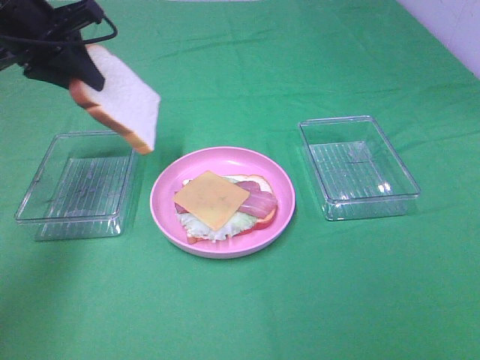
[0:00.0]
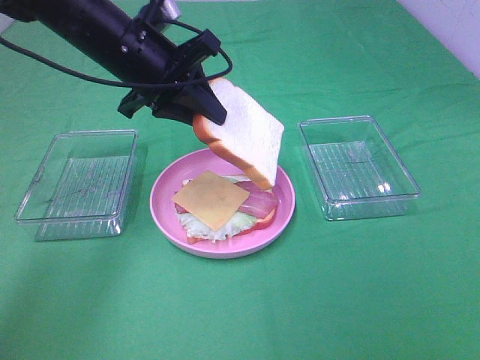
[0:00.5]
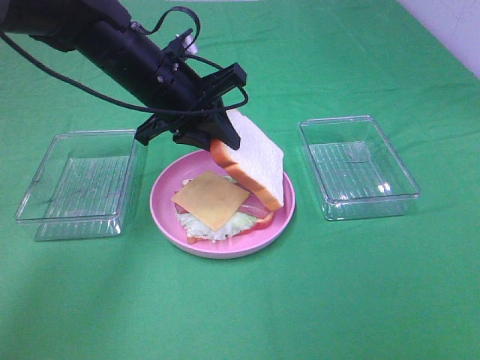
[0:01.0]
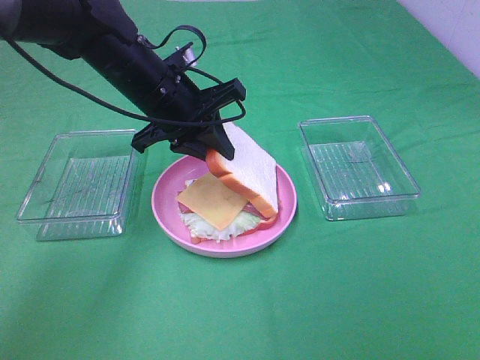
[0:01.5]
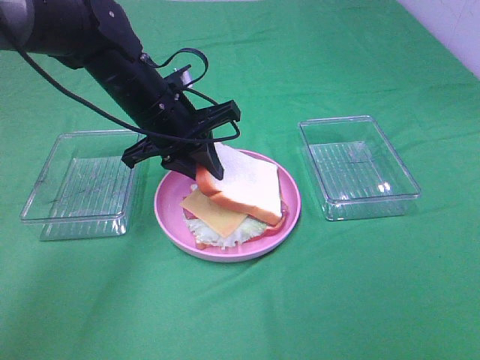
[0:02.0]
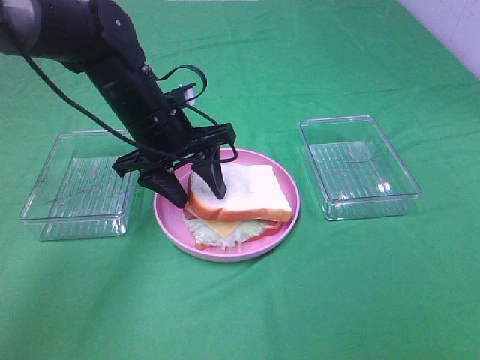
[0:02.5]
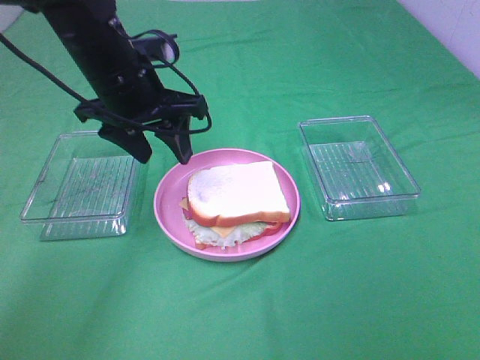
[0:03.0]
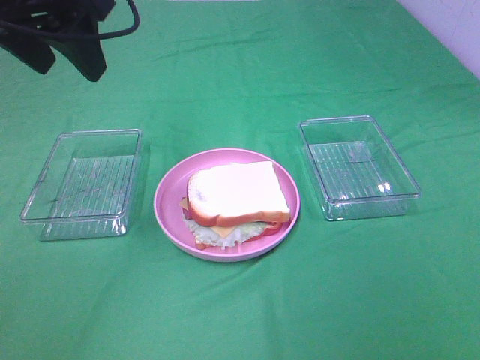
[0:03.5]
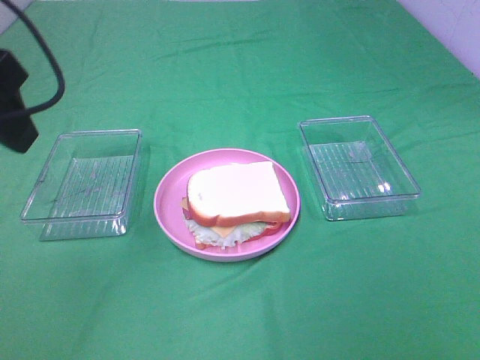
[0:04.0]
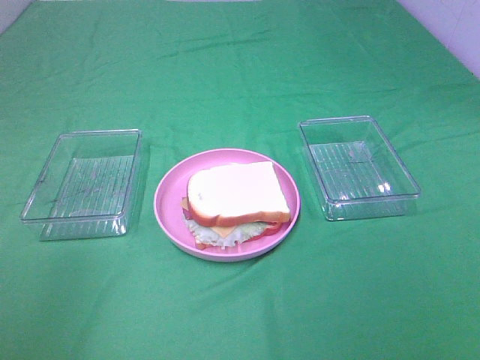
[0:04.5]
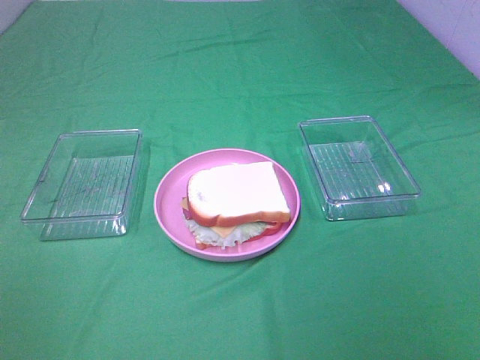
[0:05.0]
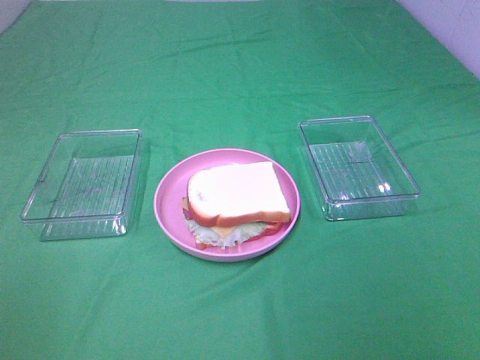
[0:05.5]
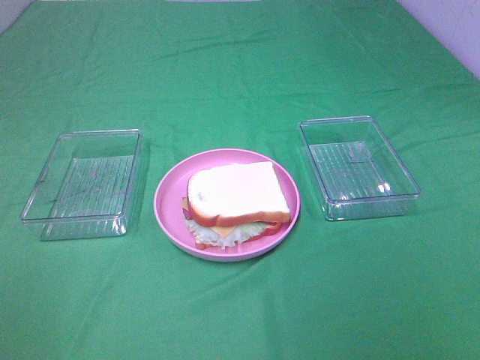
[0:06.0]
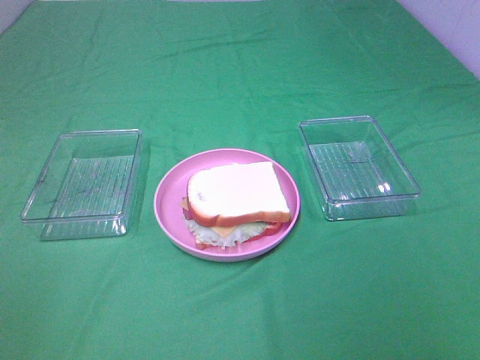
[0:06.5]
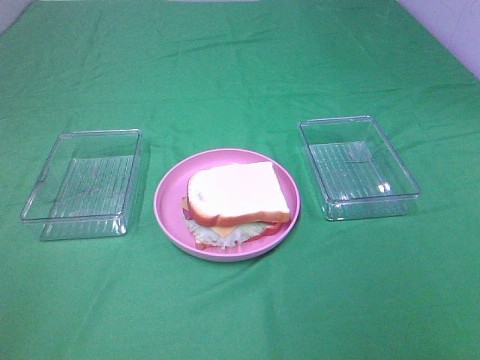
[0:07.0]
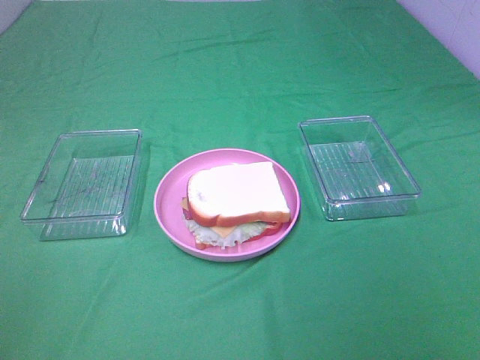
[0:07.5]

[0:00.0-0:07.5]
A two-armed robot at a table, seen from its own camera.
Task of the whole recording: Make sandwiches.
Step, 0:00.0 to 0:02.5: Left hand:place the bread slice on the cheese slice.
0:00.0 to 0:02.0: The left gripper is displaced to the right and downward by roughly 15 cm.
0:02.0 to 0:04.0: The left gripper travels upward, backward and to the left by roughly 25 cm, and opens its fingers.
0:04.0 to 0:05.5: The left gripper is displaced backward and to the left by roughly 25 cm.

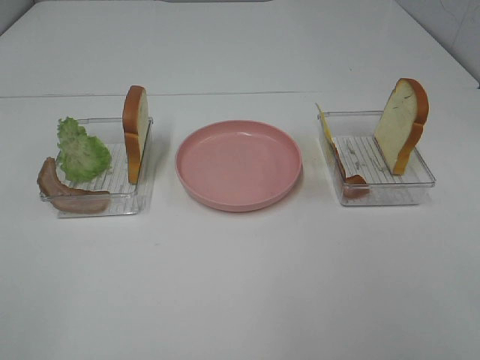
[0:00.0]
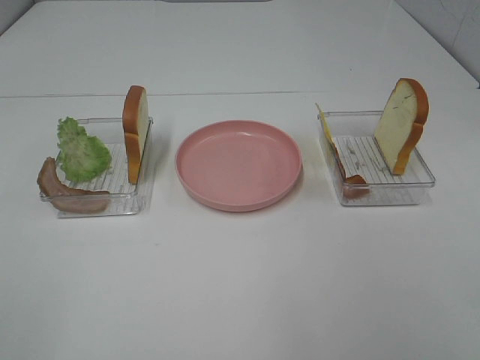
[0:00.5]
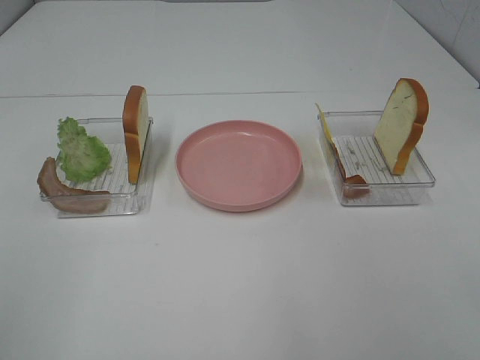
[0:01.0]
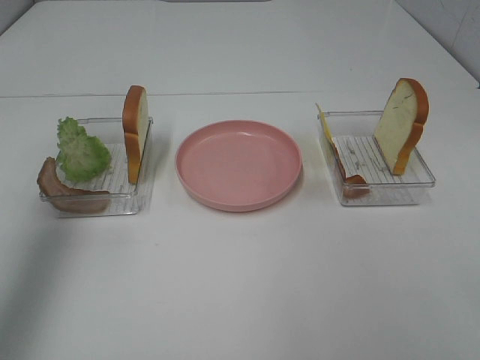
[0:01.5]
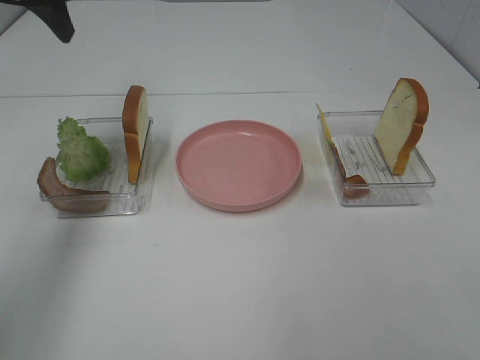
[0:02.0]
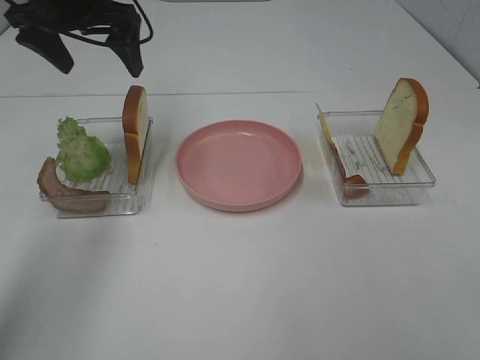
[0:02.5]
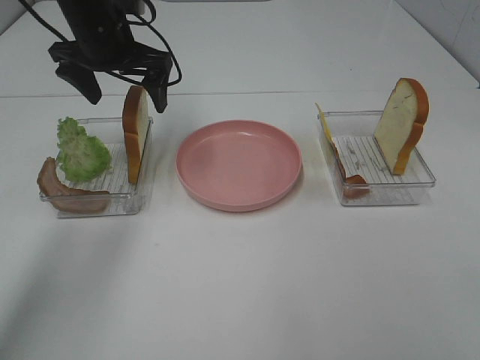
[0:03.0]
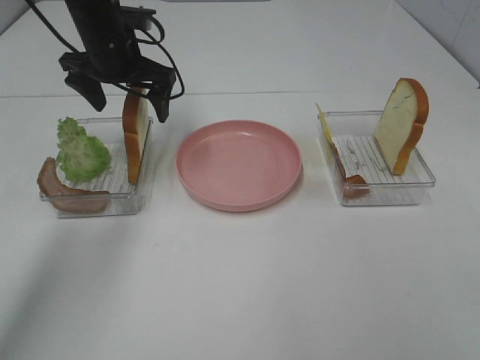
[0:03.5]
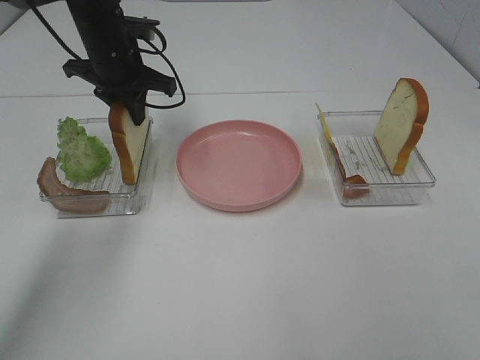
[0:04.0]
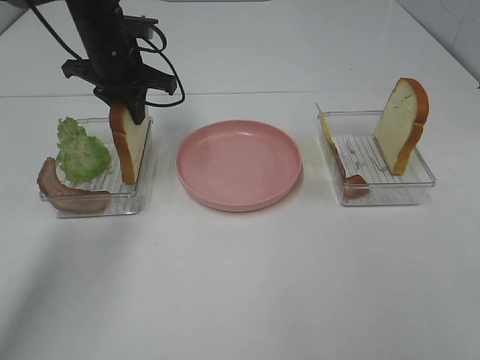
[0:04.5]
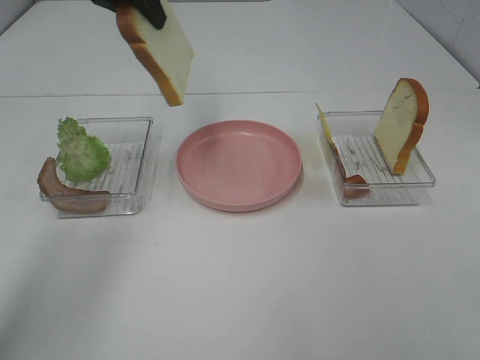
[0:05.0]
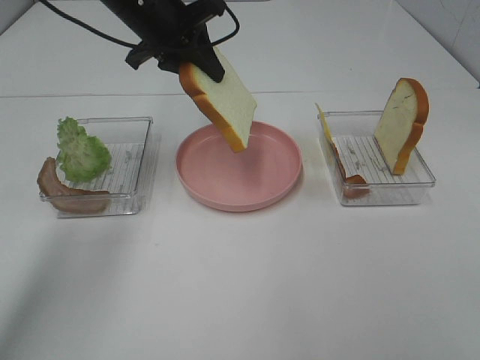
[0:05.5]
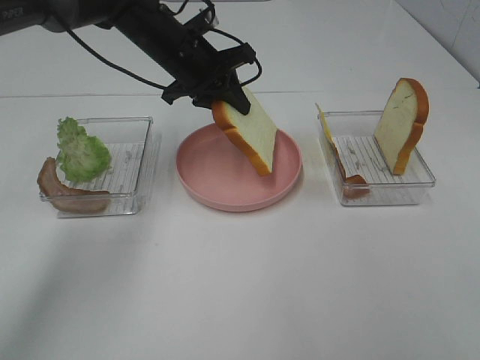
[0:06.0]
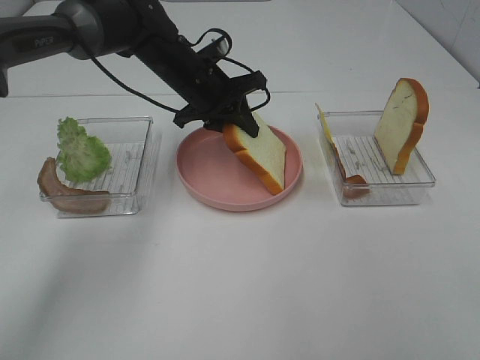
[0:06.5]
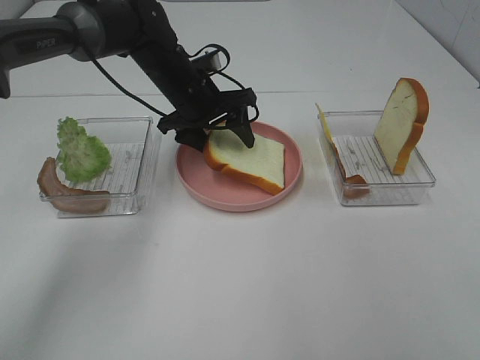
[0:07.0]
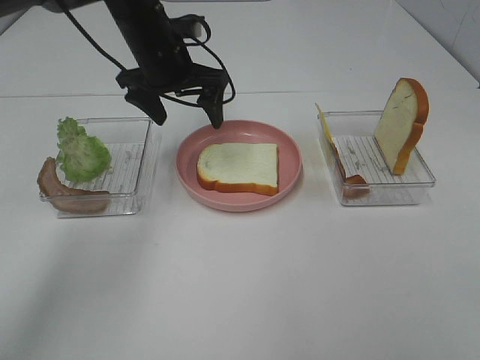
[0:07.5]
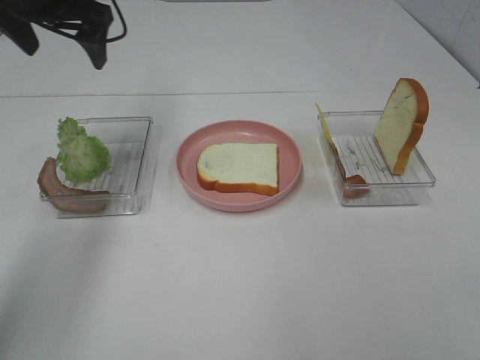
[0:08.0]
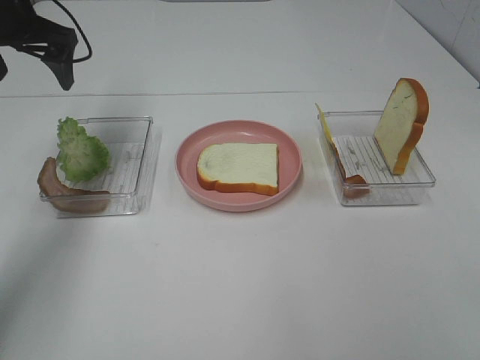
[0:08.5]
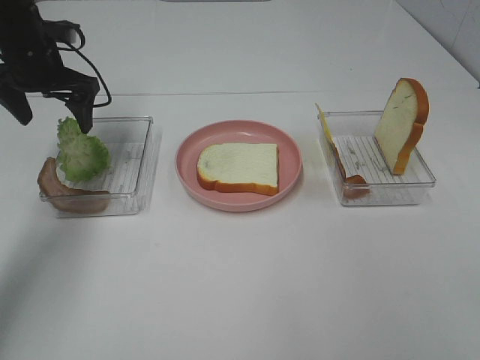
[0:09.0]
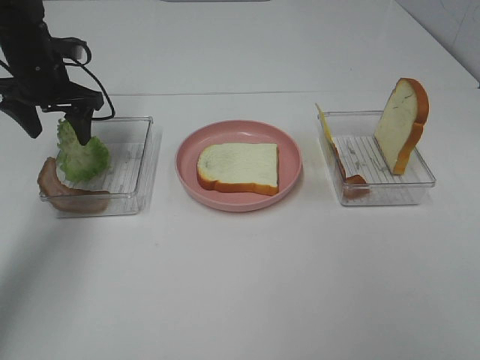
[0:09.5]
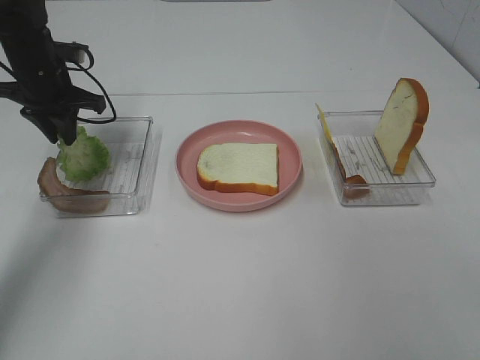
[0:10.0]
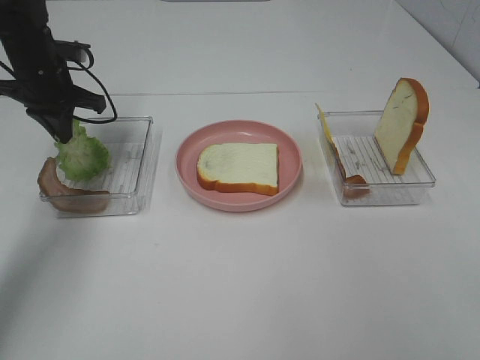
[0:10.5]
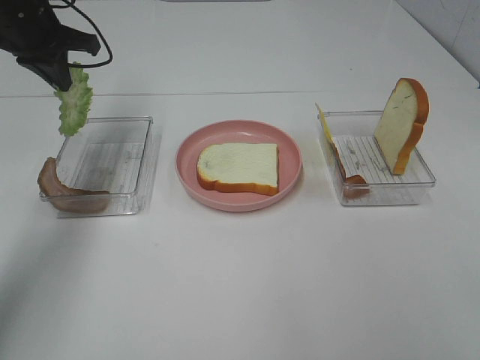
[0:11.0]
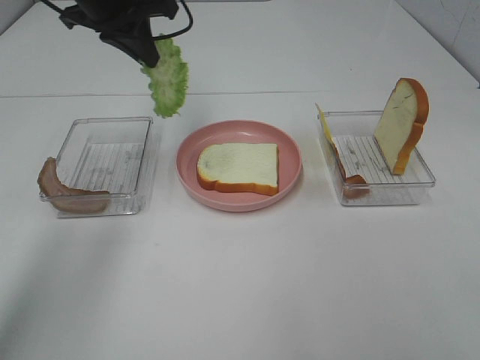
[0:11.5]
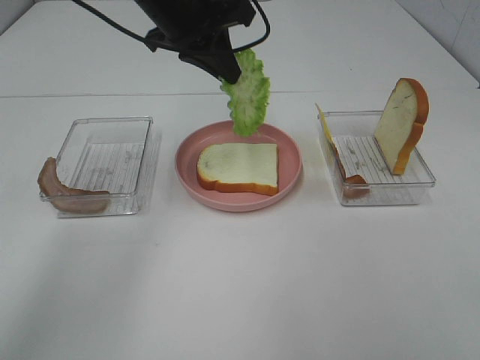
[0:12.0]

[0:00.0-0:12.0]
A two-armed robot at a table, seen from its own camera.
Task of the whole recording: Make sandwiches.
Step, 0:00.0 to 0:04.0: Left hand:grab the bread slice.
Step, 0:04.5 to 0:07.0: Left hand:place the bread slice on the plate.
Step, 0:07.5 to 0:10.0: Left hand:grab the lettuce slice.
0:00.0 to 0:02.0: The left gripper travels forward by about 40 cm.
0:02.0 to 0:04.0: The left gripper shifts about 20 cm downward, to the right and forward, and closes.
0:04.0 to 0:06.0: The left gripper moves to the right, about 10 cm, and goes upward and returns, about 15 cm each way.
0:06.0 to 0:08.0: The left gripper moves to the left and upward, approximately 20 cm, and opens.
0:08.0 to 0:10.0: The left gripper shifts approximately 15 cm downward, and closes up.
0:10.0 to 0:12.0: The left gripper heads to the right and upward, covering some 20 cm.

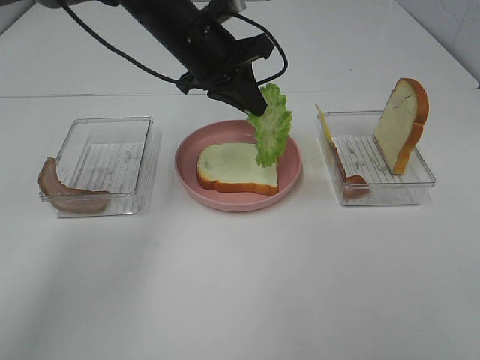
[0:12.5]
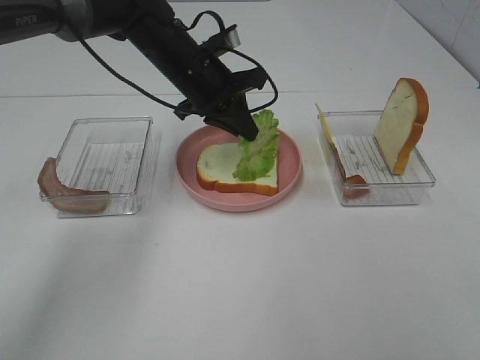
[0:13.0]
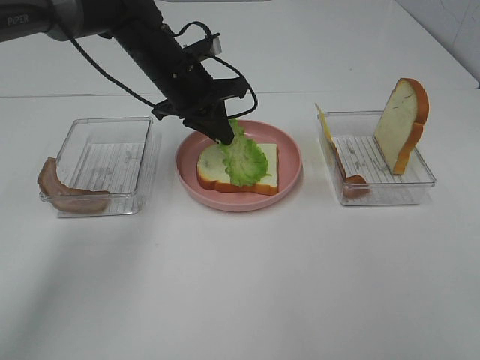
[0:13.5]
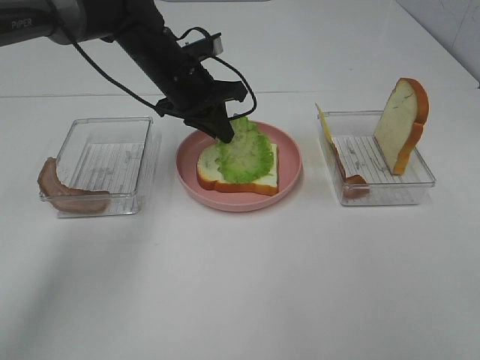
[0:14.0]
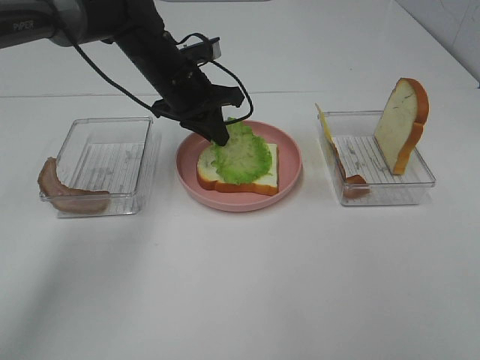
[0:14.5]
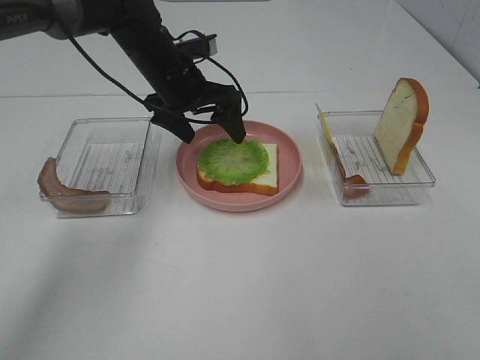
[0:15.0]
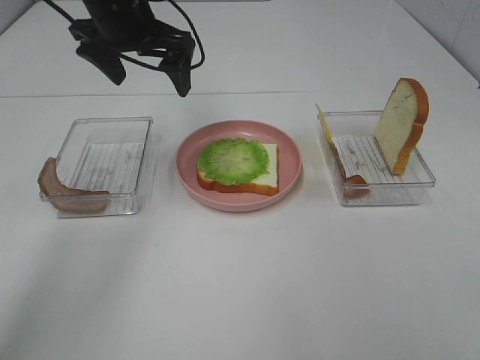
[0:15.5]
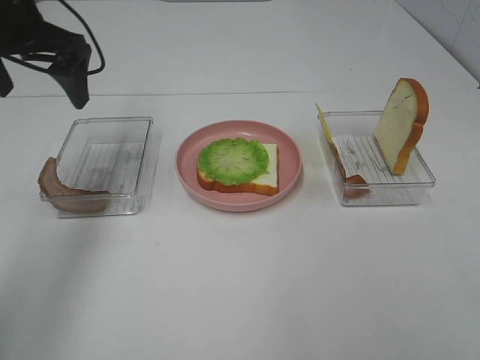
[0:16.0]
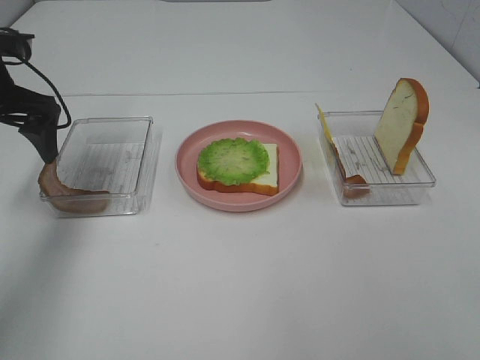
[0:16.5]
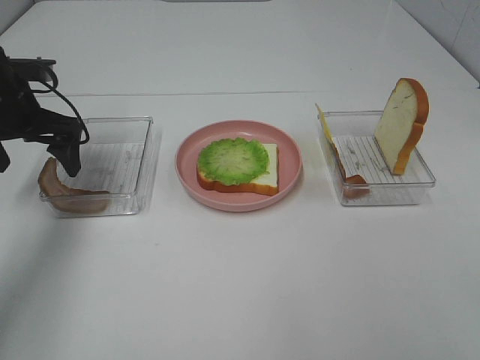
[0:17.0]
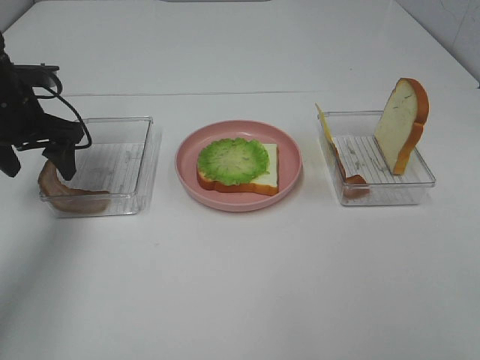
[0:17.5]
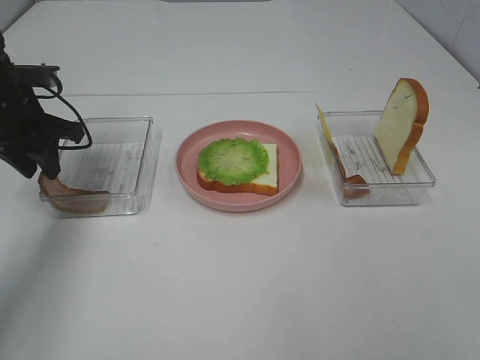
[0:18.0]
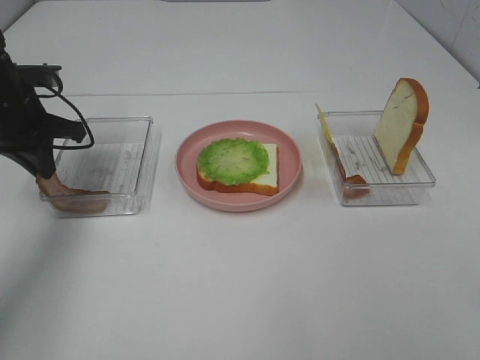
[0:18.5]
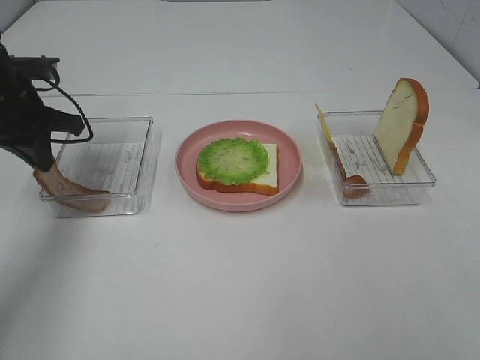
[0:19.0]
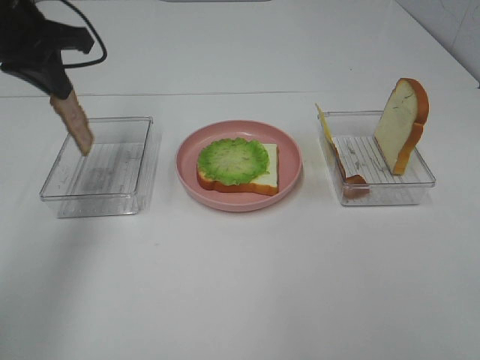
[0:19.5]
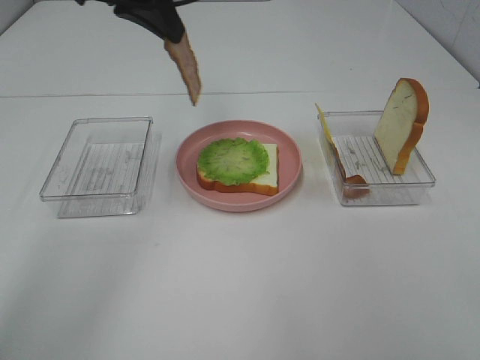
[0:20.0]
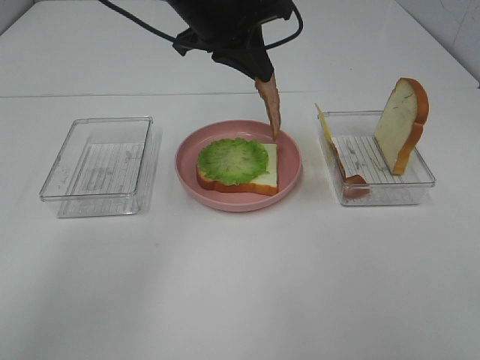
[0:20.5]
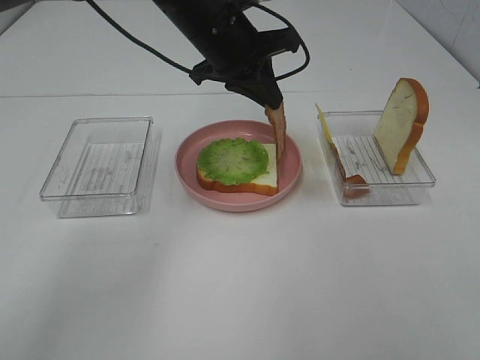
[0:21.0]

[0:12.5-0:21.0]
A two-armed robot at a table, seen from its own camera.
Task of the whole recording: Make sandwiches.
Step, 0:12.5 to 0:15.0: Left hand:place the lettuce slice on the bread slice.
Step, 0:15.5 to 0:18.0: Left hand:grab the bacon.
0:12.5 to 0:14.5: The left gripper goes about 5 cm downward.
0:14.5 to 0:16.5: The left gripper is displaced to the left and backward by approximately 20 cm, and opens its fingers.
0:16.5 to 0:19.0: The left gripper closes up.
0:19.0 to 0:21.0: The left gripper shifts about 25 cm to the right.
